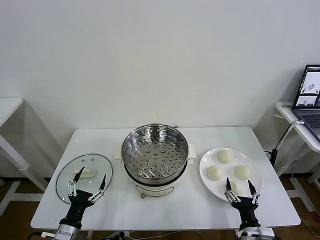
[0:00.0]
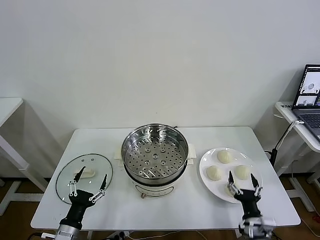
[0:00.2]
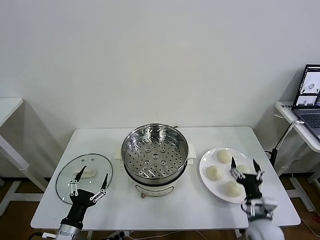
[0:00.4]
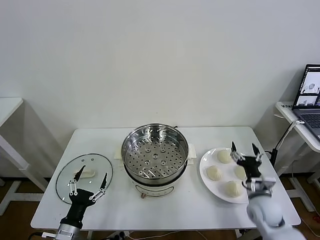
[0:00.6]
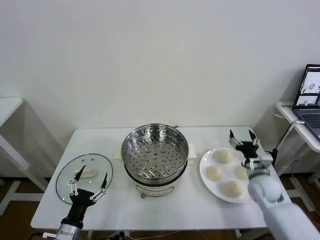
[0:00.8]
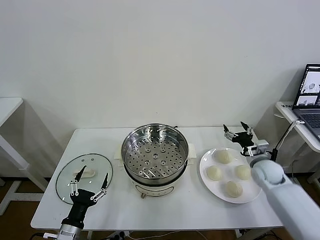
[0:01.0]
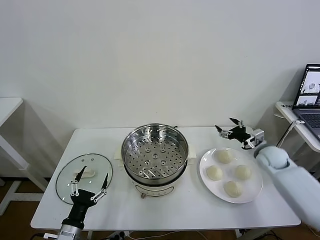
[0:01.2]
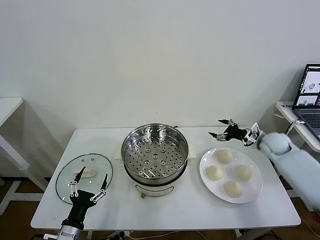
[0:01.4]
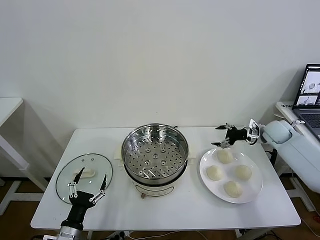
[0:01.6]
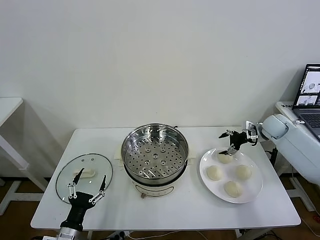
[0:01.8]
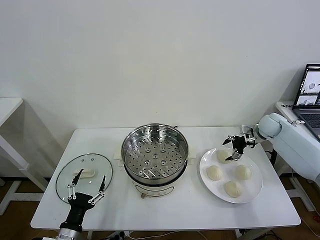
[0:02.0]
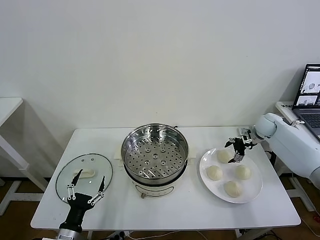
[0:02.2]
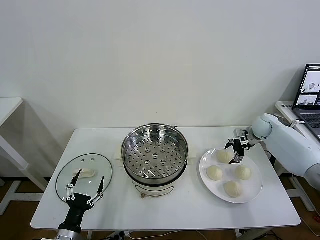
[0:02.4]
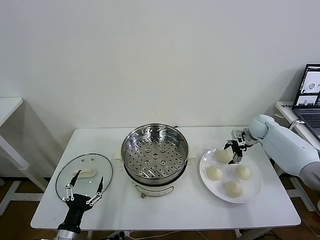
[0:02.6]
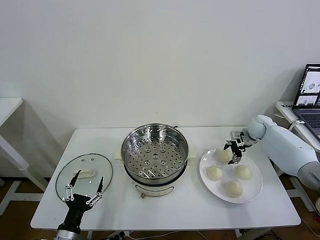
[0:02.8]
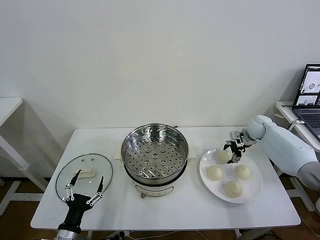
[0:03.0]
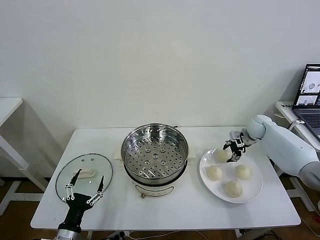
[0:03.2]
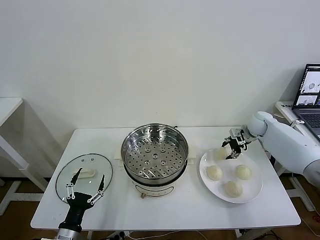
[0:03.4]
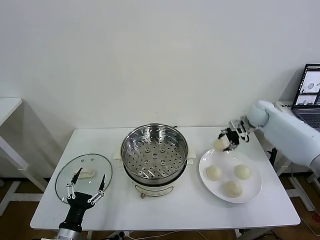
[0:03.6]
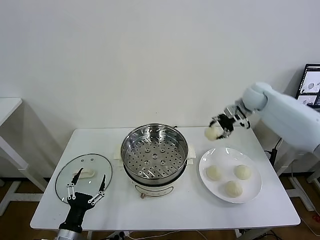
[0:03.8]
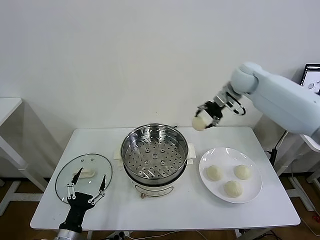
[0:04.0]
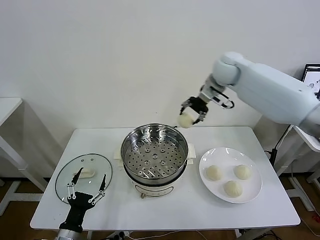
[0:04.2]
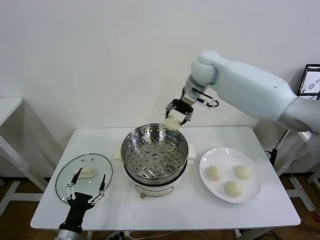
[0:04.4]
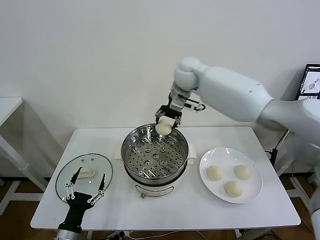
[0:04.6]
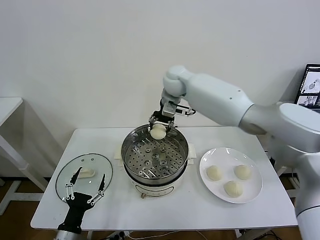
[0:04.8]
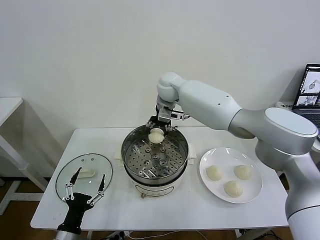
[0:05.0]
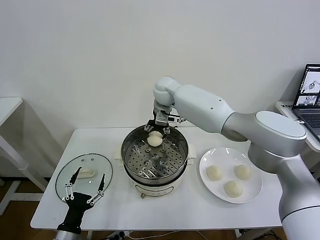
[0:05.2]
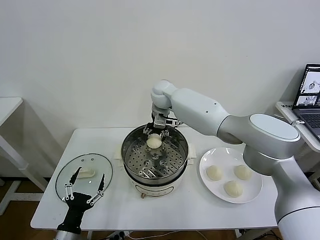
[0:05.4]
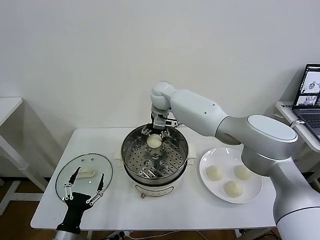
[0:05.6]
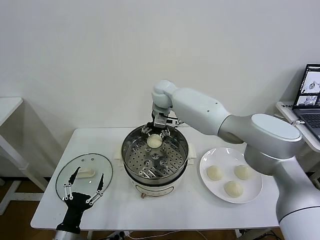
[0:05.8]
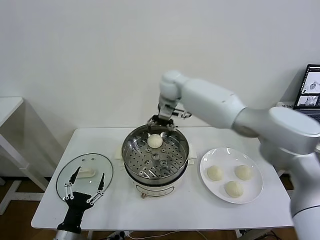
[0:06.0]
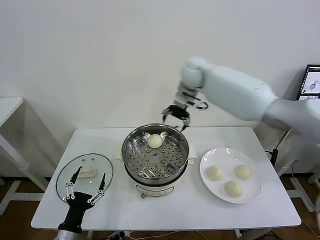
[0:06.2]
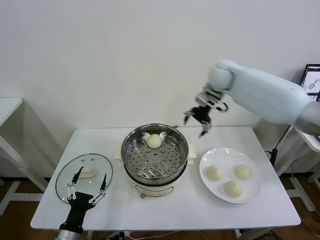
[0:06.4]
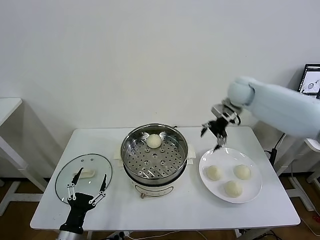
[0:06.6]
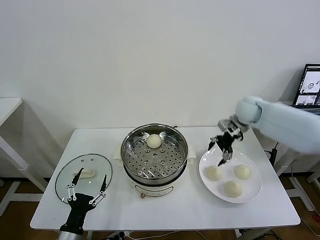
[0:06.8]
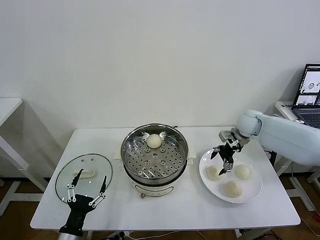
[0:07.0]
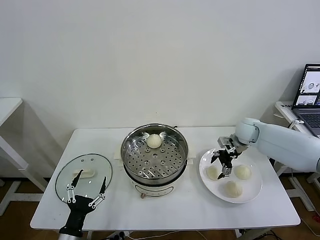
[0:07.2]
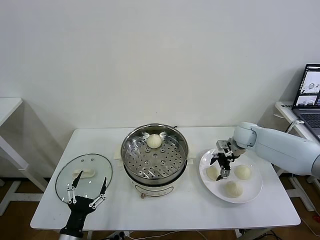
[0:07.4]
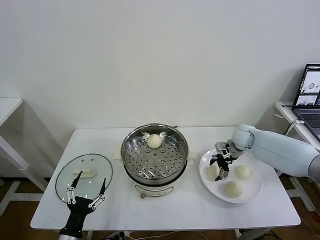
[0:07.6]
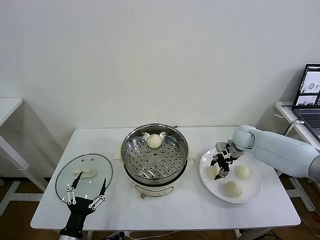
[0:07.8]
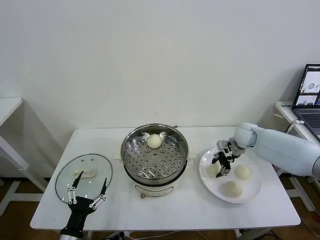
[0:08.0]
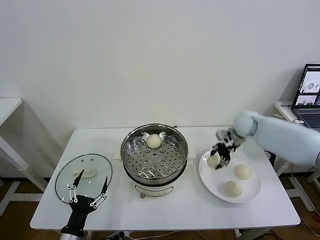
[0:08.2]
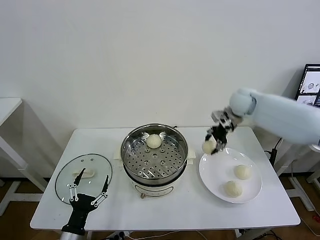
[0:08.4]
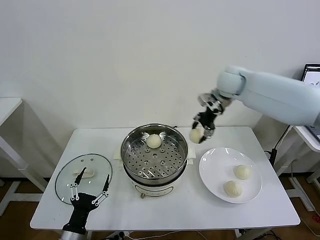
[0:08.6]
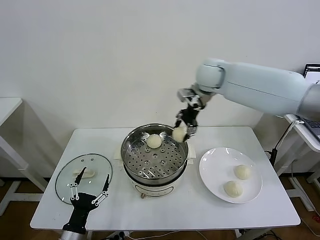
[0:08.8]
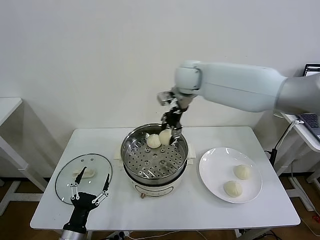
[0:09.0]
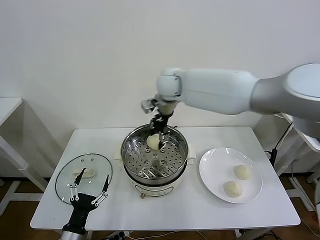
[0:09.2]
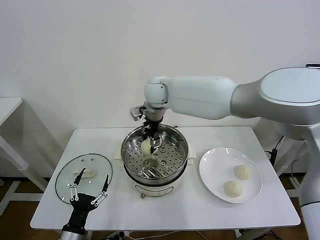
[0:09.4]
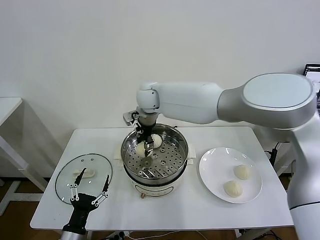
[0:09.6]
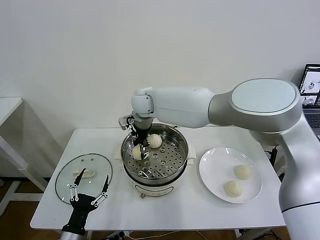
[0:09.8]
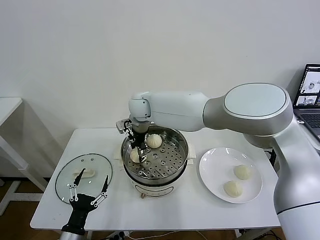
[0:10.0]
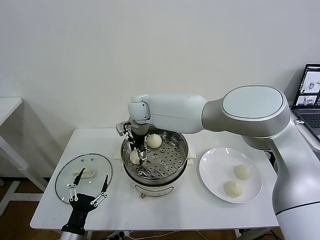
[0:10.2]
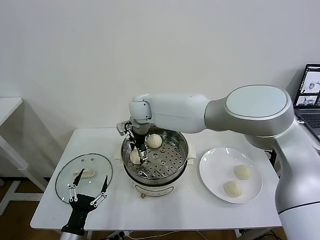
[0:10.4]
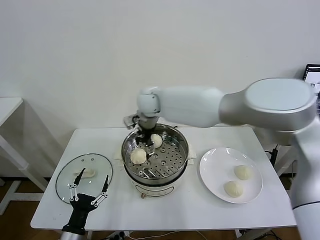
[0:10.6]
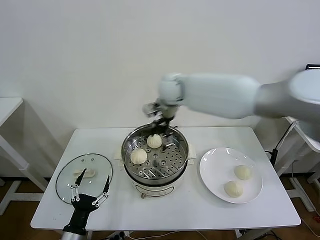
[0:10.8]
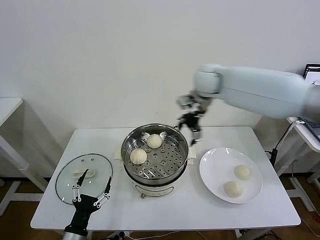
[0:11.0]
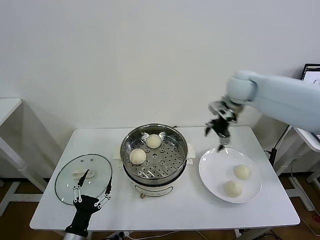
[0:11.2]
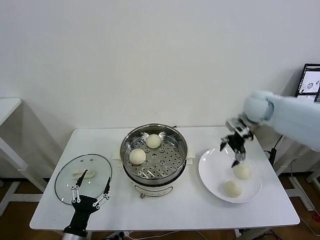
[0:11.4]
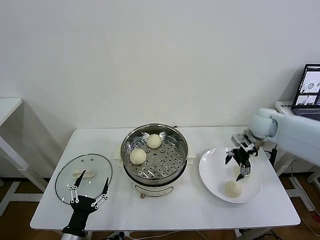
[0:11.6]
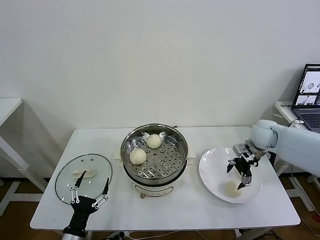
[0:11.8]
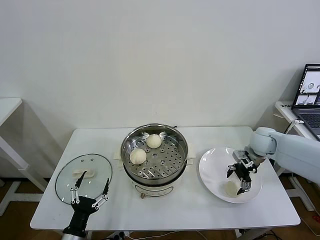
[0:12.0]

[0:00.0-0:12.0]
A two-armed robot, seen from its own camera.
Task of the whole recording: take steamed baozi put them in steamer then cover it.
Step, 0.0 to 3.0 s: Grasp the baozi in the plate with right gripper.
Step, 3.2 to 5.6 s: Place the baozi on the steamer with right gripper.
Step, 5.8 to 7.6 s: Grasp the baozi in the plate with right gripper.
Step, 8.0 to 10.2 s: Place the baozi on the steamer with right gripper.
1.6 to 3.0 s: The right gripper ends up approximately 5 cm from where it was, and closes up.
3.0 to 4.4 s: The right gripper goes roughly 40 cm to the left and upward.
4.4 to 6.0 s: The right gripper goes downward and returns, about 10 cm each way, and opens its fingers.
6.0 to 7.6 s: The right gripper shifts roughly 35 cm to the right and downward.
7.6 to 9.0 s: The right gripper heads to the left and upward, covering approximately 35 cm, and closes up.
9.0 to 10.4 s: The right gripper moves to the left and downward, roughly 15 cm, and opens up.
10.4 to 12.0 s: The right gripper goes approximately 40 cm to the right.

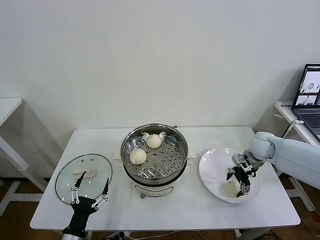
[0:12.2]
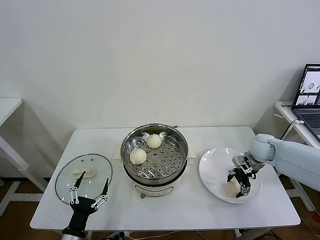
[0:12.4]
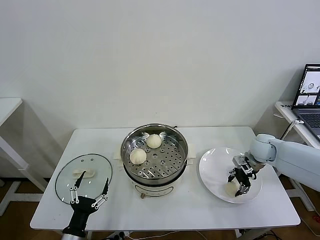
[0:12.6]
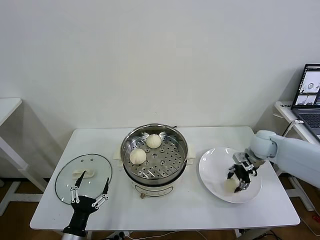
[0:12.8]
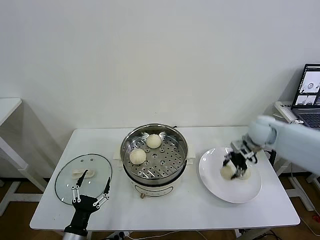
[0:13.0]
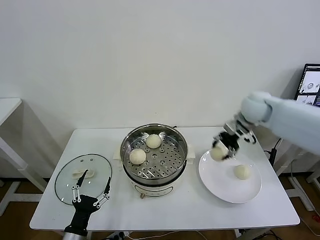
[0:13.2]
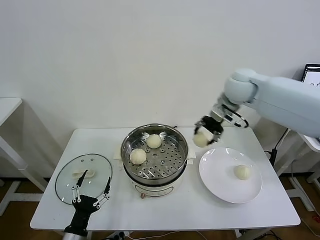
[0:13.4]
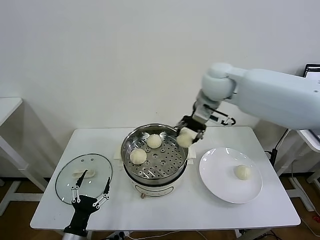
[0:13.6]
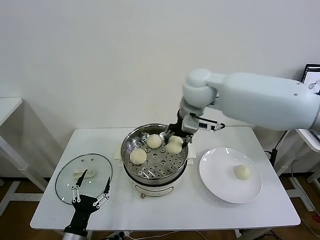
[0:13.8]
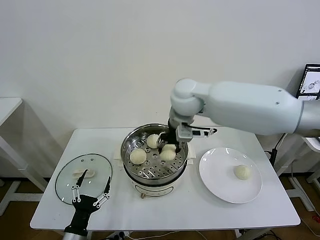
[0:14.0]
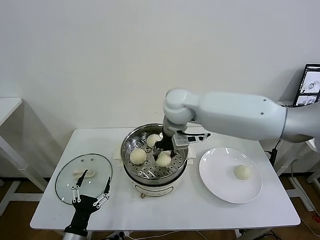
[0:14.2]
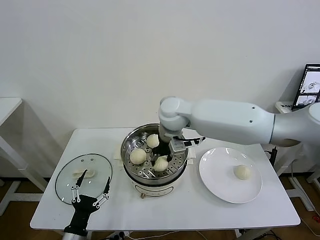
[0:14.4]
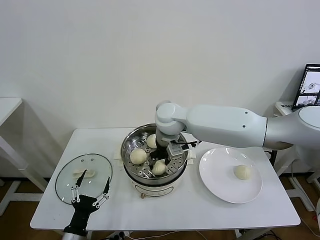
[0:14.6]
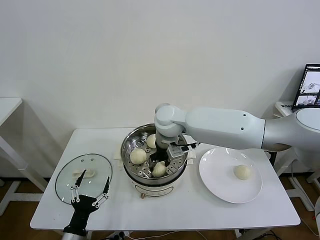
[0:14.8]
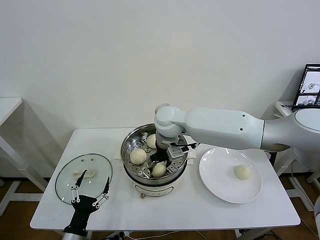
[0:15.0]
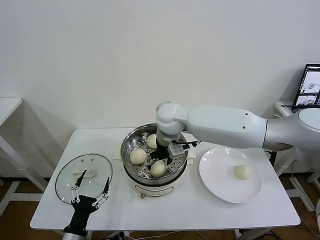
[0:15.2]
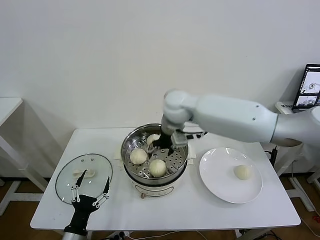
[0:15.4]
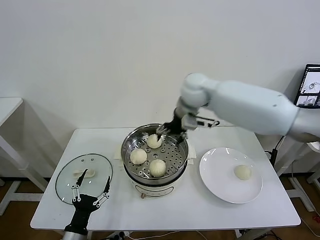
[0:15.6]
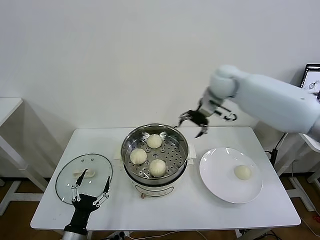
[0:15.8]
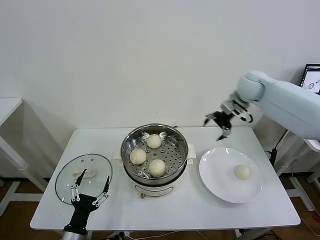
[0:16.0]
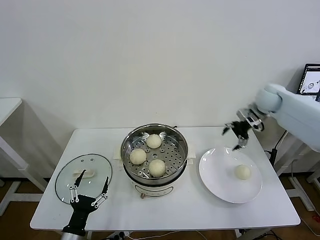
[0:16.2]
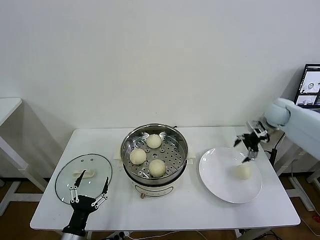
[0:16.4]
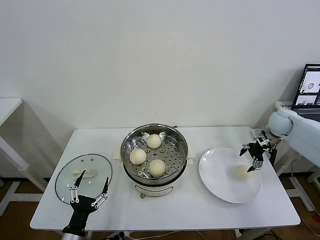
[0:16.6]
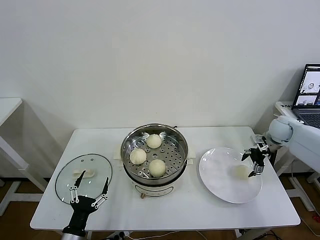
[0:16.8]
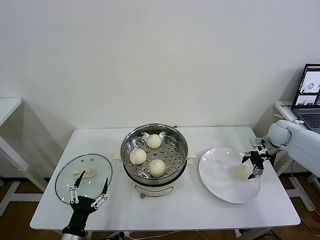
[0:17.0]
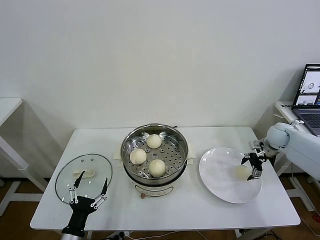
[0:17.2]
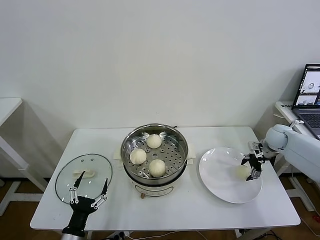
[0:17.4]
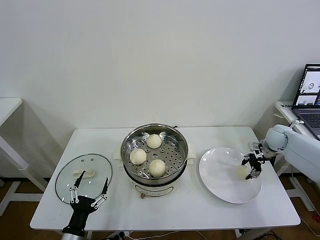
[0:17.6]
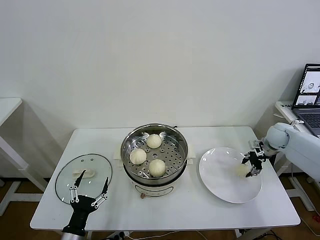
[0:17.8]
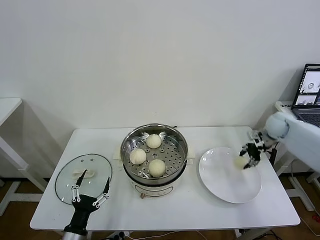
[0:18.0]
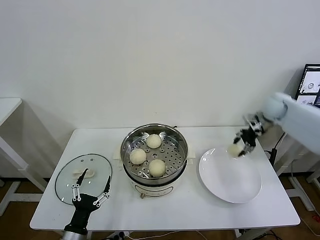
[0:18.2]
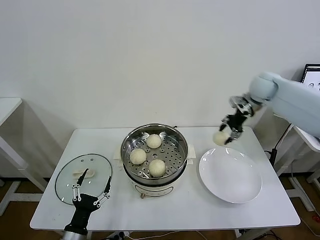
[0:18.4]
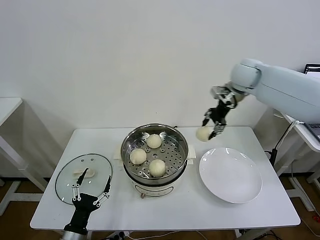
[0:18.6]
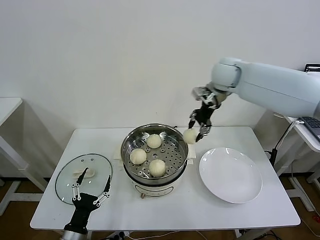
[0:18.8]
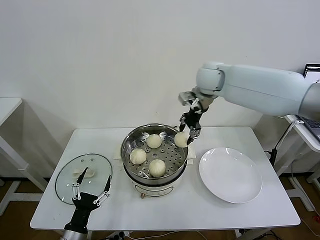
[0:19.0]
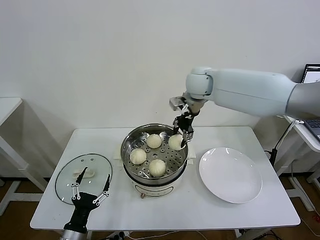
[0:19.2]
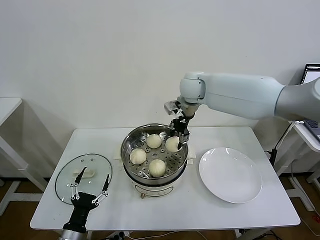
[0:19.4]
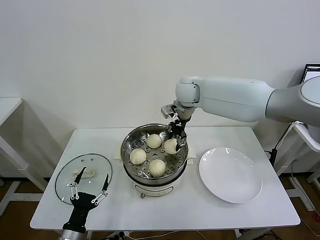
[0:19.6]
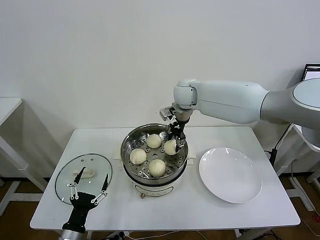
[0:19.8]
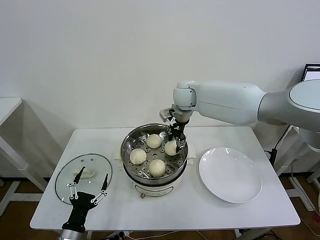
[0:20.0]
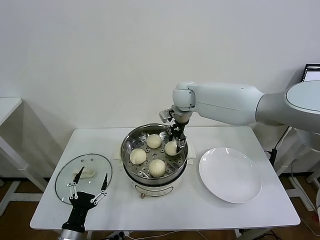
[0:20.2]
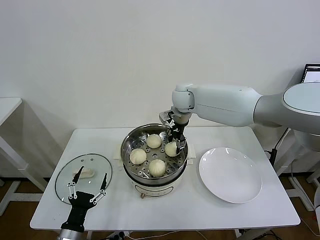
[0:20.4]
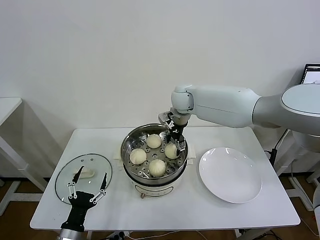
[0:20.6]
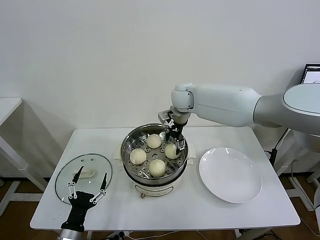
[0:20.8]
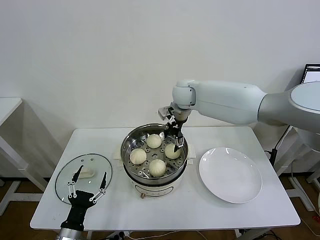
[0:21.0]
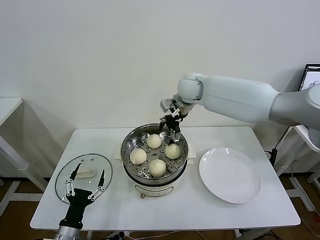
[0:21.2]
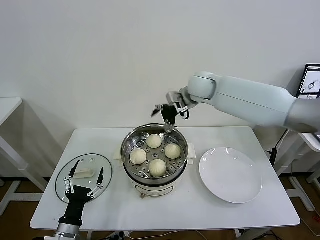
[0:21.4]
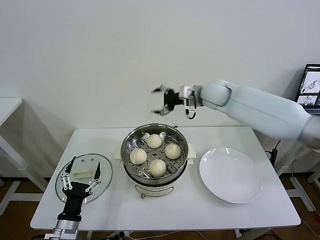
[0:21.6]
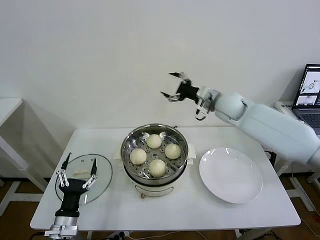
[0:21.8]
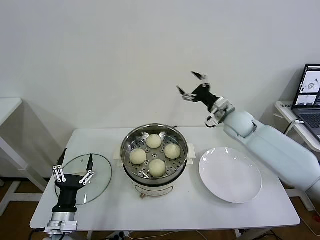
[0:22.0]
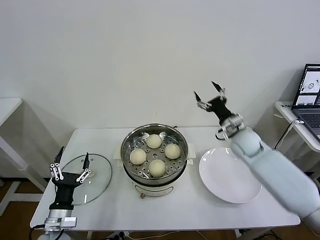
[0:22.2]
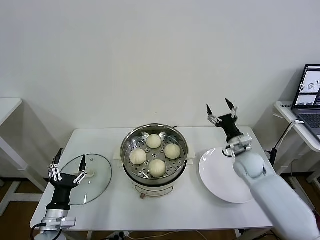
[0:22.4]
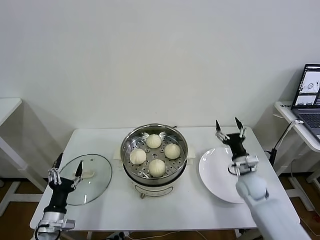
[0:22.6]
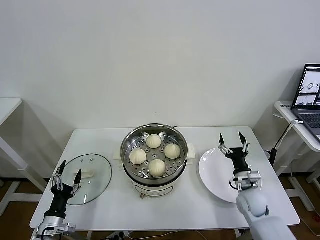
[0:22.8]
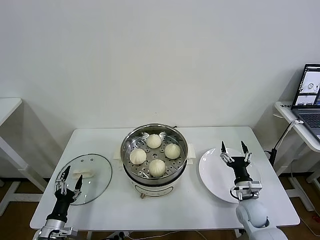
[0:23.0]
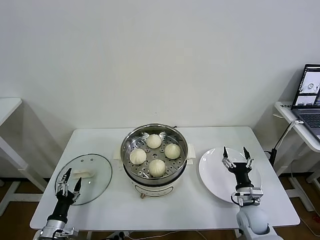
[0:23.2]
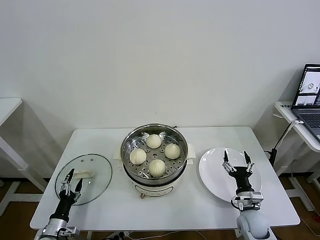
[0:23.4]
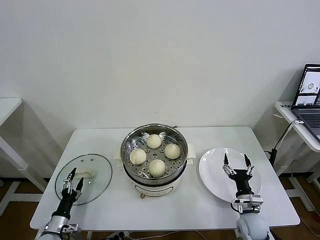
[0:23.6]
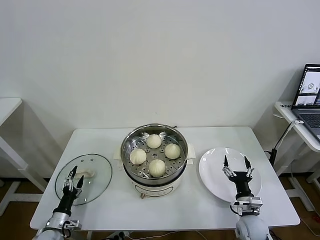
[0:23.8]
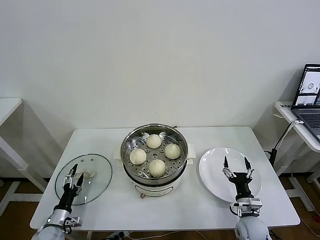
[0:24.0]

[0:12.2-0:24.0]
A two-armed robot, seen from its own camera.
Task of the whole recording: take steamed baozi put them in steamer then cover it.
Step, 12.8 to 15.0 s: Place the baozi on the steamer with right gripper.
Step, 15.4 to 17.6 s: Grasp the baozi in the plate with right gripper.
Step, 18.0 to 20.6 s: Place the baozi on the steamer with right gripper.
12.2 to 13.6 s: The right gripper is displaced upward and to the left by approximately 35 cm, and closes.
13.6 to 15.2 s: The right gripper travels downward and to the left by some 15 cm, and opens up.
15.2 to 16.6 s: The right gripper goes roughly 40 cm to the right.
16.6 to 18.2 s: The right gripper moves upward, some 5 cm, and closes.
18.2 to 19.6 s: The right gripper goes some 30 cm to the left.
19.6 to 21.0 s: The right gripper opens up.
21.0 to 22.6 s: The left gripper is displaced to the left by roughly 5 cm. Meanwhile the right gripper moves downward, to the right and backward, about 40 cm.
22.6 to 24.0 s: The right gripper moves backward and downward, some 15 cm; the left gripper travels downward and to the left by some 15 cm.
